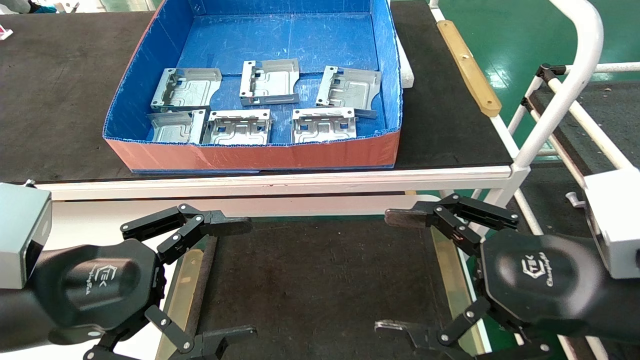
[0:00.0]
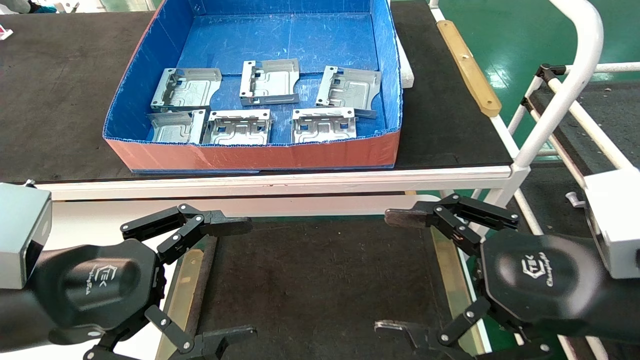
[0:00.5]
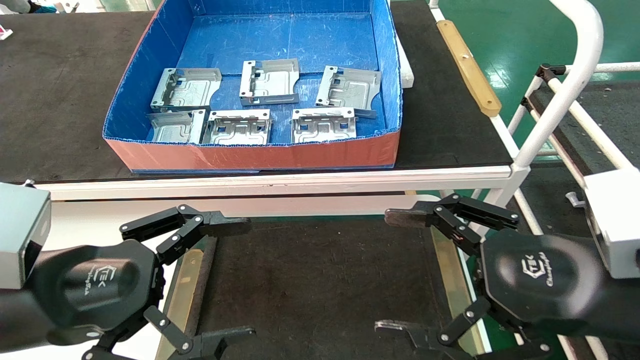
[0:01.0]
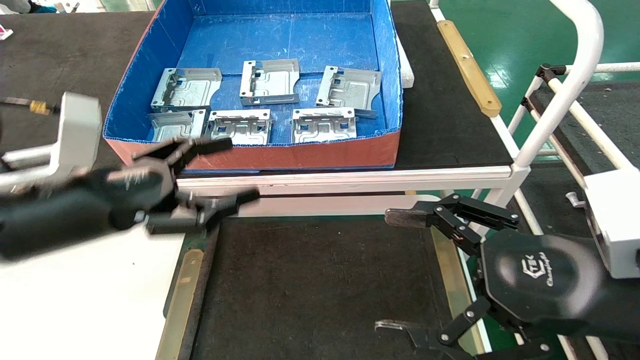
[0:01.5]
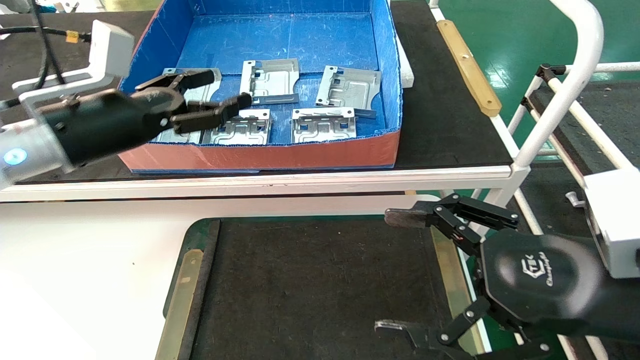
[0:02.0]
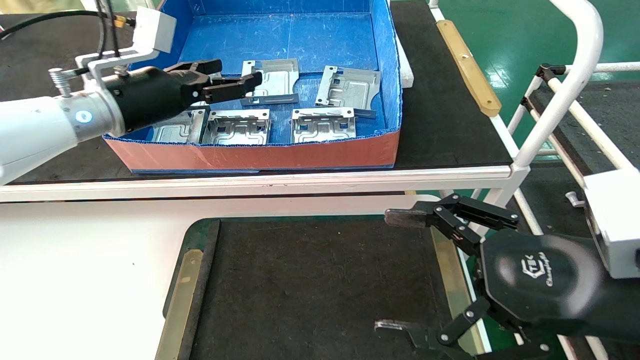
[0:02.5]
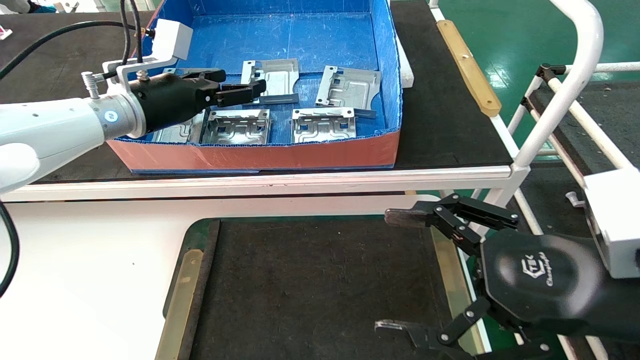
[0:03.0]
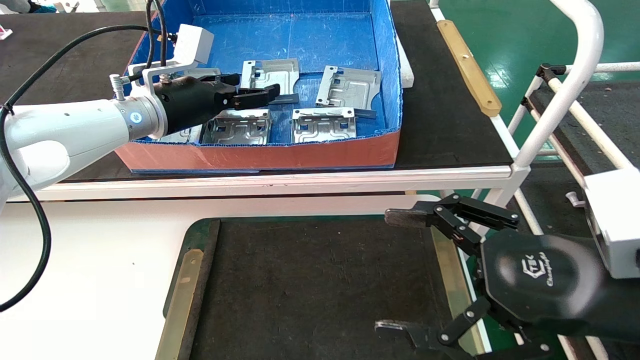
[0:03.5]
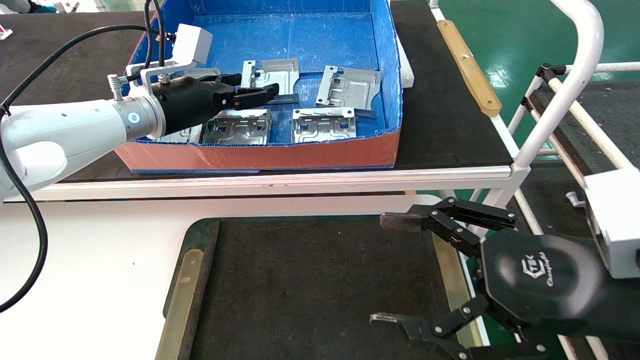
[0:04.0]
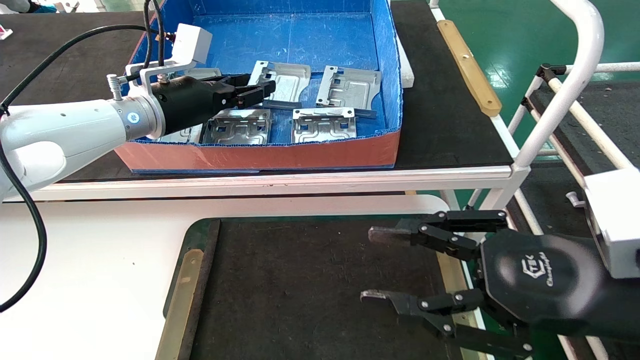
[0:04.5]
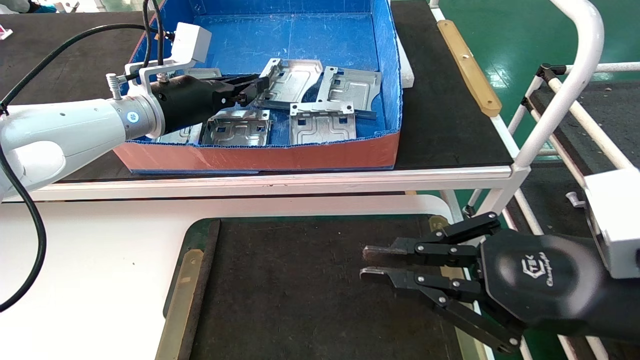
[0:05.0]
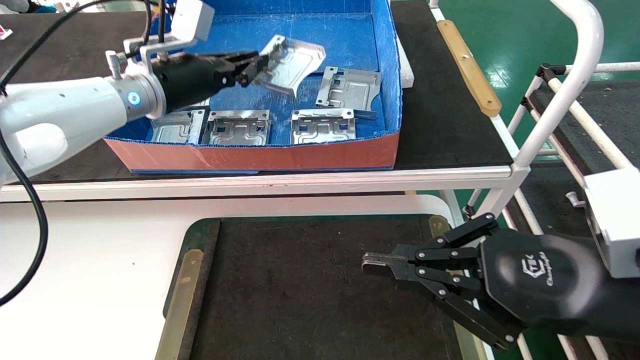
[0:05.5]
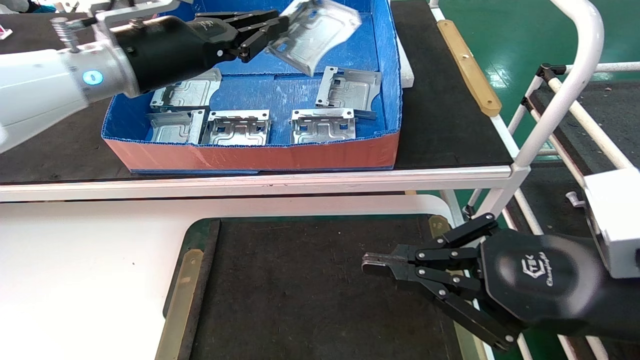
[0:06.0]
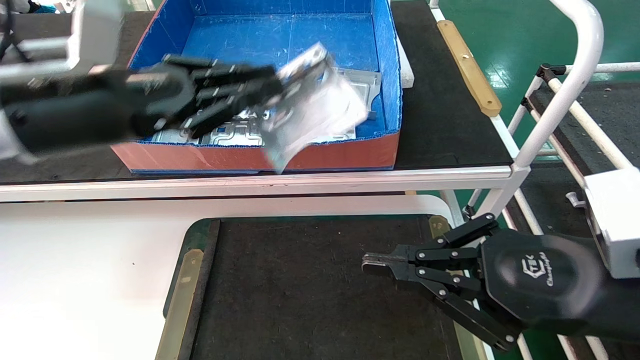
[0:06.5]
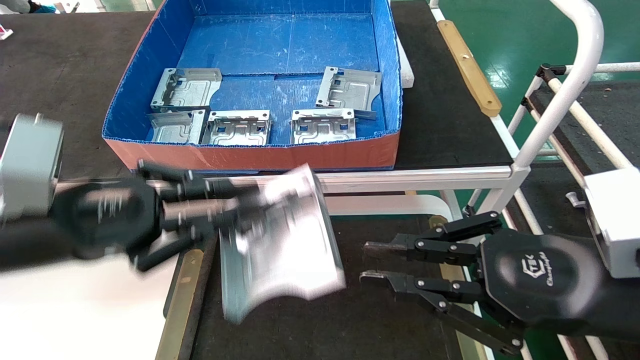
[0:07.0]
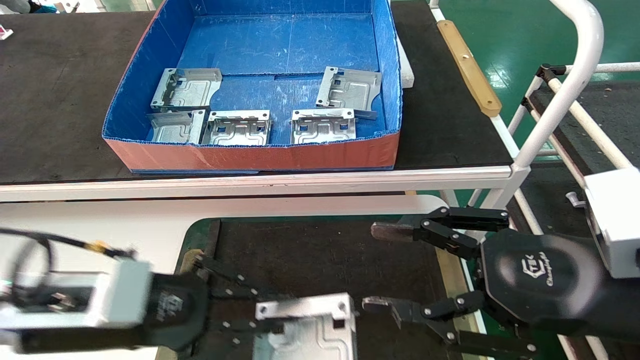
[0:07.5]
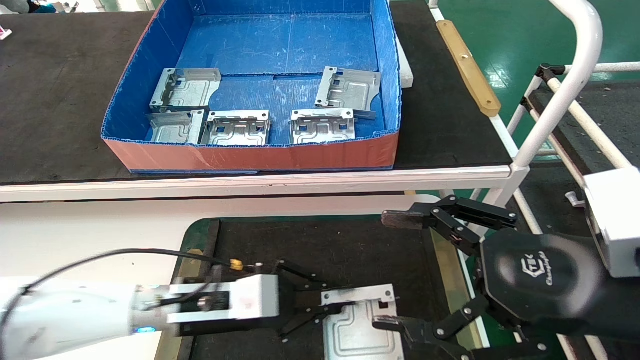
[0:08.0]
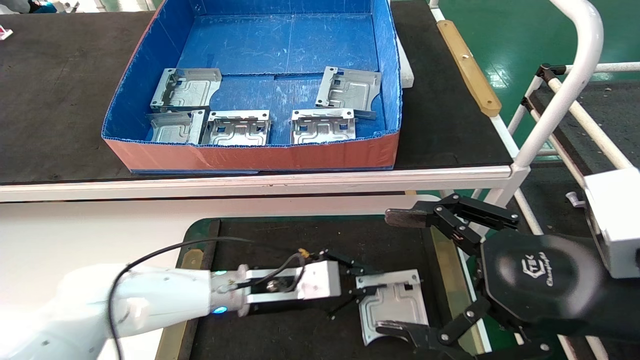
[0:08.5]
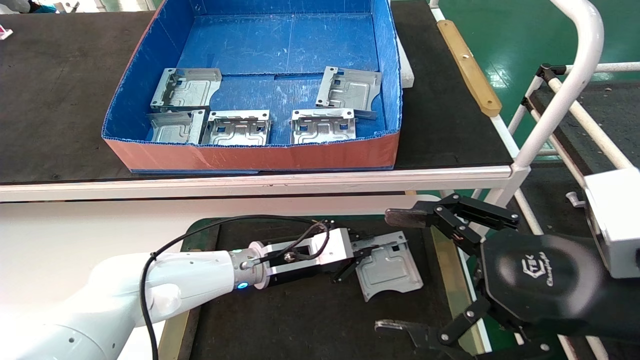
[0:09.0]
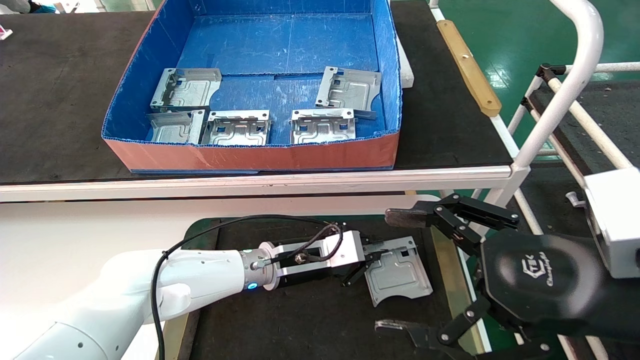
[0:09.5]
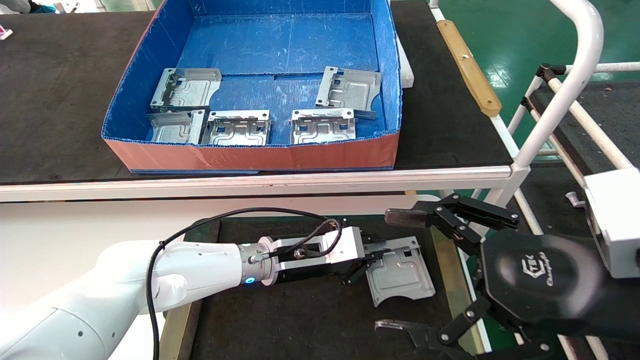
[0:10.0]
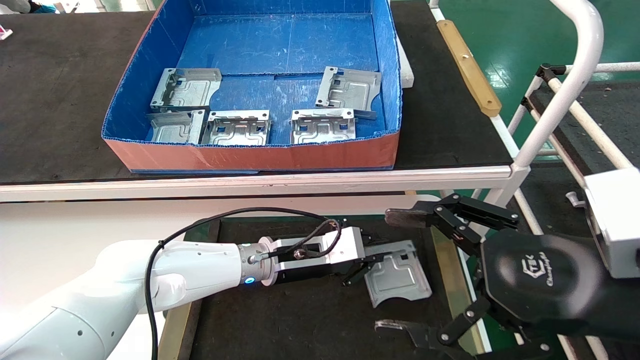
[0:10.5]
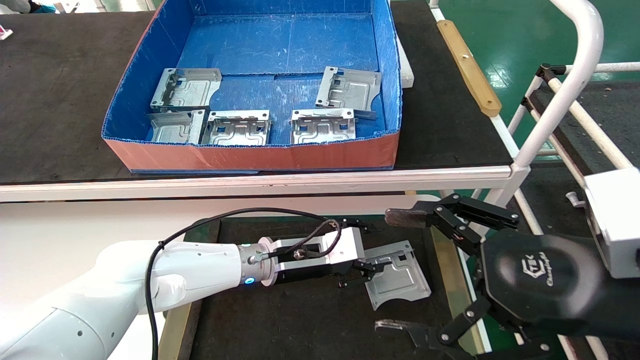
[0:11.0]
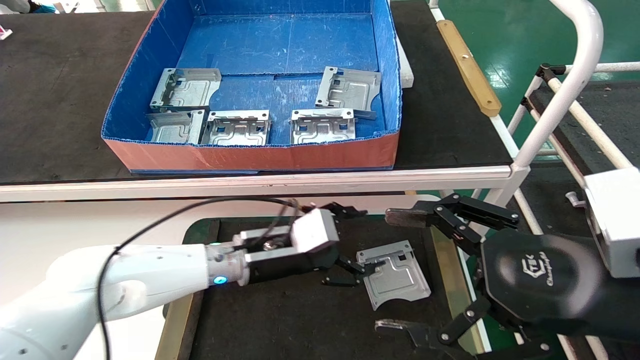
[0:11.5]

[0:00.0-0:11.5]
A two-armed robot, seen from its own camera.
Task of the whole recording: take the accessories out of the box and place them on the table.
Step, 0:01.5 to 0:04.5: Pick up the hard drive bracket from the feeding area.
Step, 0:05.0 to 0:10.5: Place the hard drive bracket into the box.
0:00.0 to 0:02.0: The left gripper is displaced forward and upward by about 20 cm.
0:02.0 to 0:04.0: The left gripper shifts some 10 cm forward and to the right.
0:04.0 to 0:06.0: The left gripper shifts about 10 cm backward and upward, and closes. The right gripper closes its fingers.
0:06.0 to 0:07.5: The right gripper opens its fingers, while the left gripper moves downward and backward, some 25 cm.
0:07.5 to 0:09.5: The right gripper opens its fingers; the left gripper goes some 25 cm forward, to the right and downward.
0:09.5 to 0:11.5: The left gripper moves some 5 cm, and opens up.
